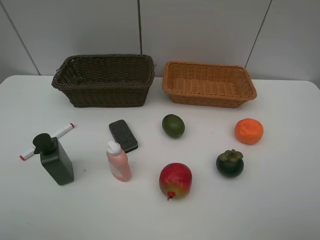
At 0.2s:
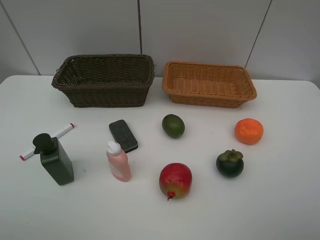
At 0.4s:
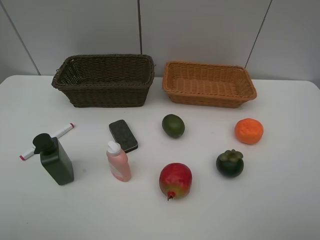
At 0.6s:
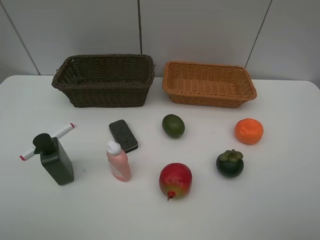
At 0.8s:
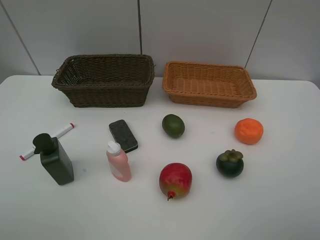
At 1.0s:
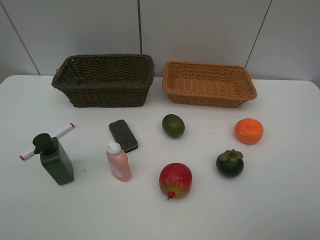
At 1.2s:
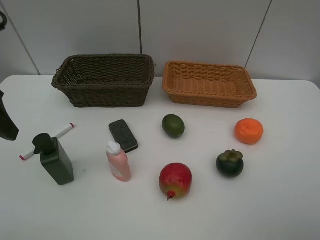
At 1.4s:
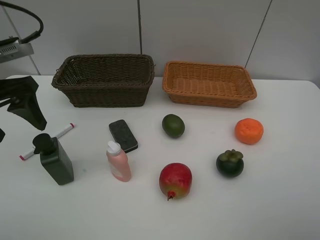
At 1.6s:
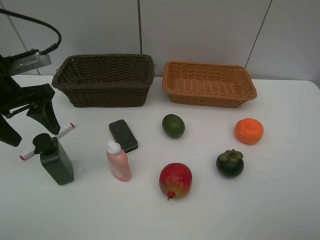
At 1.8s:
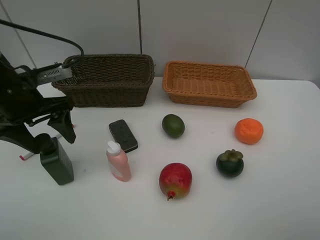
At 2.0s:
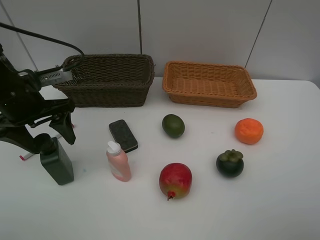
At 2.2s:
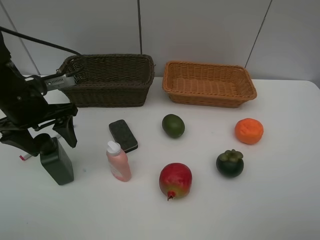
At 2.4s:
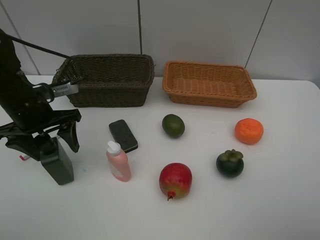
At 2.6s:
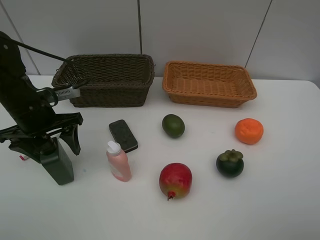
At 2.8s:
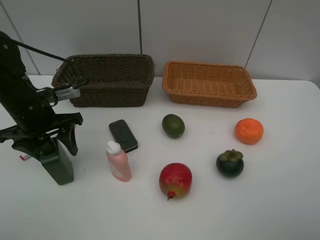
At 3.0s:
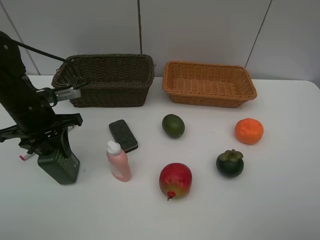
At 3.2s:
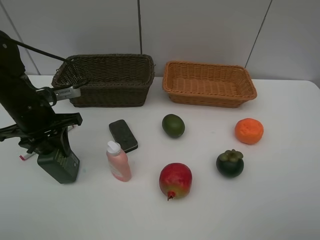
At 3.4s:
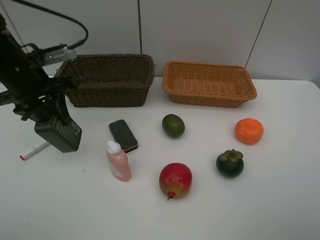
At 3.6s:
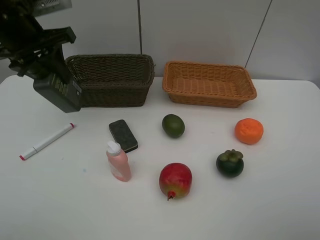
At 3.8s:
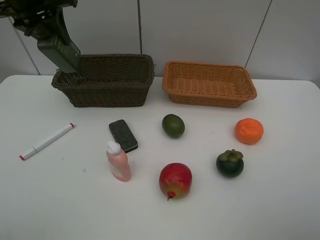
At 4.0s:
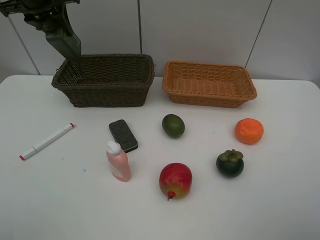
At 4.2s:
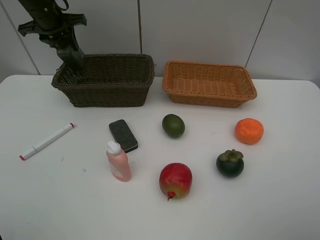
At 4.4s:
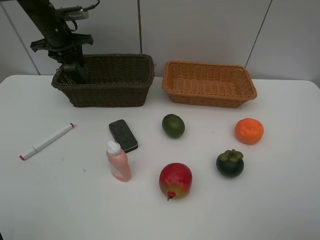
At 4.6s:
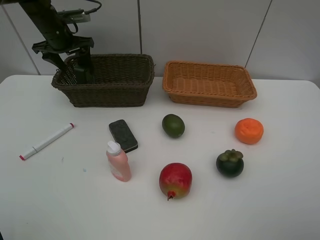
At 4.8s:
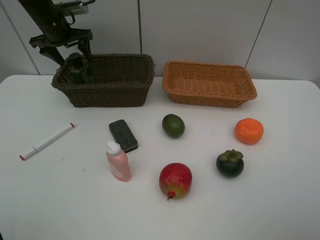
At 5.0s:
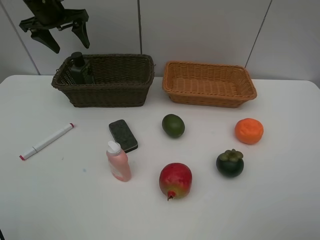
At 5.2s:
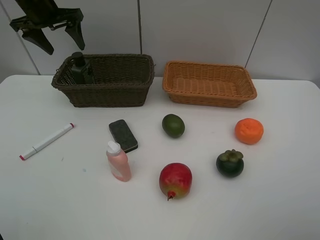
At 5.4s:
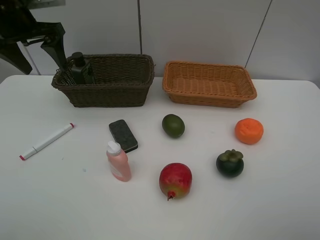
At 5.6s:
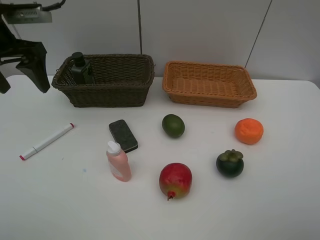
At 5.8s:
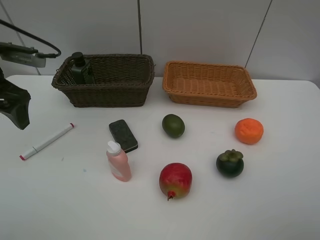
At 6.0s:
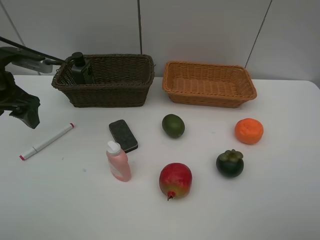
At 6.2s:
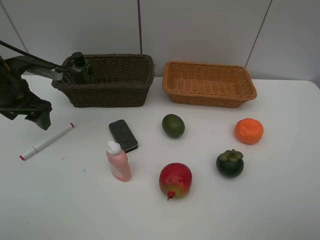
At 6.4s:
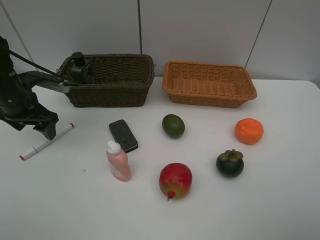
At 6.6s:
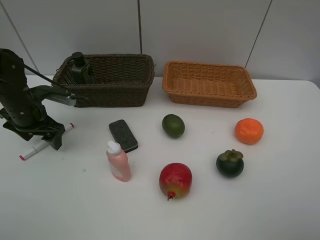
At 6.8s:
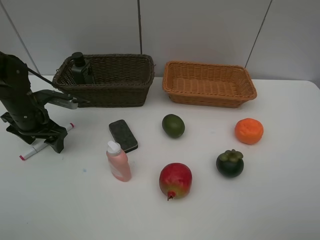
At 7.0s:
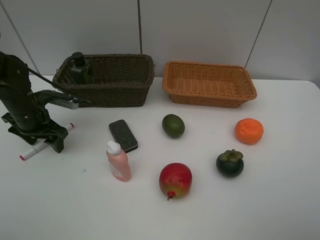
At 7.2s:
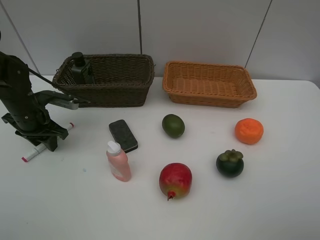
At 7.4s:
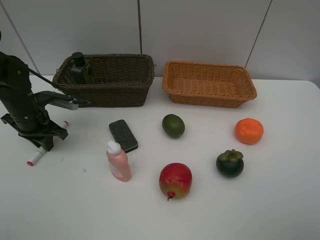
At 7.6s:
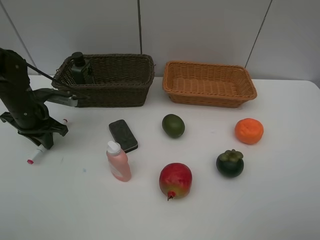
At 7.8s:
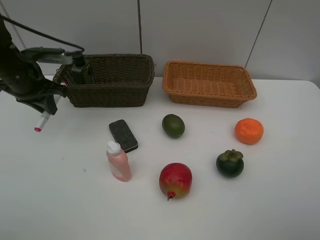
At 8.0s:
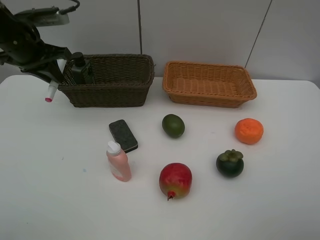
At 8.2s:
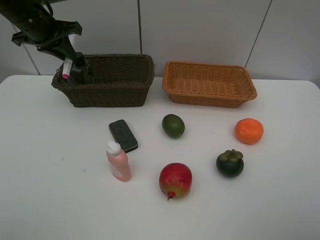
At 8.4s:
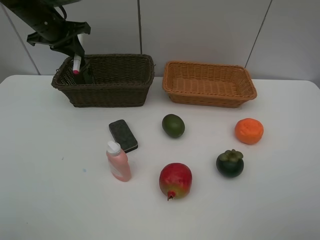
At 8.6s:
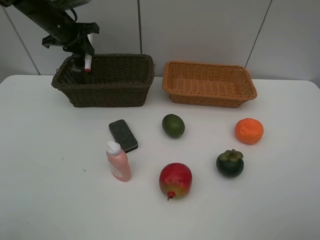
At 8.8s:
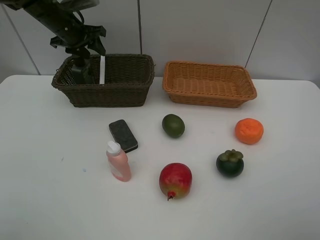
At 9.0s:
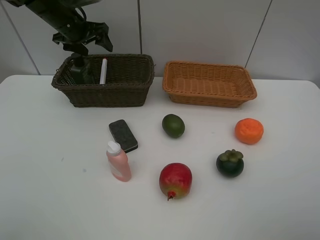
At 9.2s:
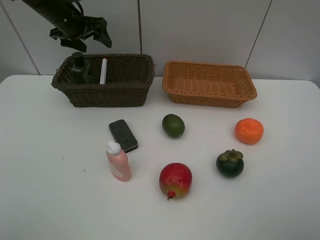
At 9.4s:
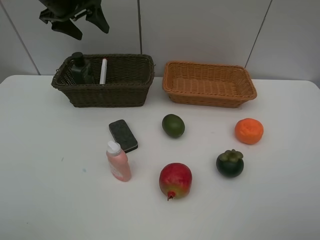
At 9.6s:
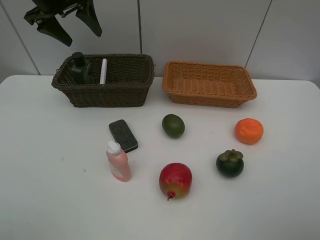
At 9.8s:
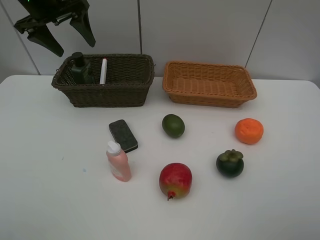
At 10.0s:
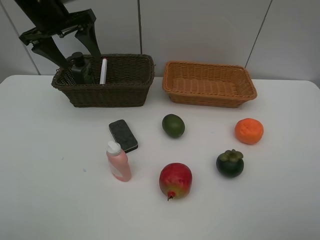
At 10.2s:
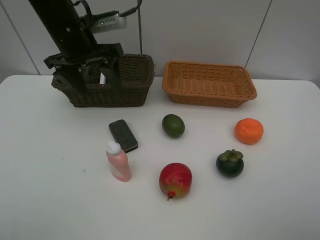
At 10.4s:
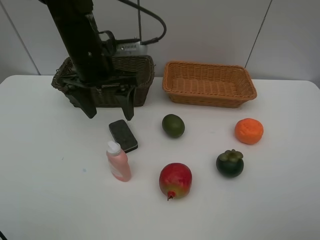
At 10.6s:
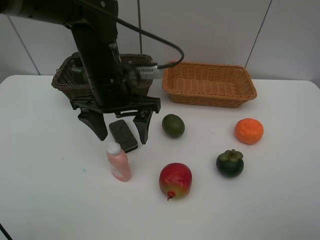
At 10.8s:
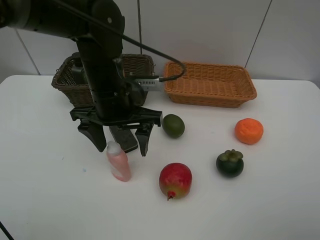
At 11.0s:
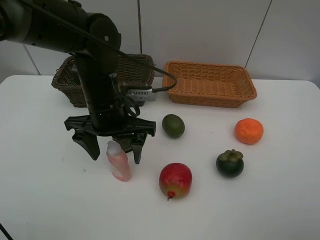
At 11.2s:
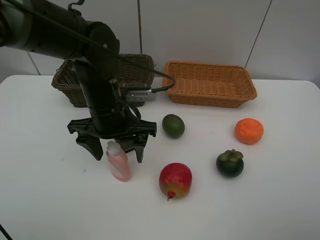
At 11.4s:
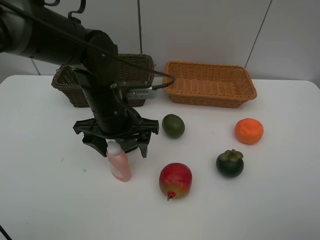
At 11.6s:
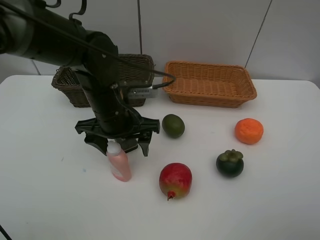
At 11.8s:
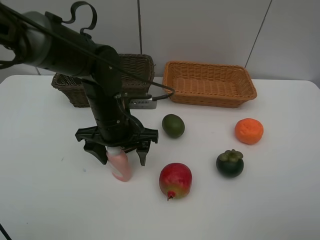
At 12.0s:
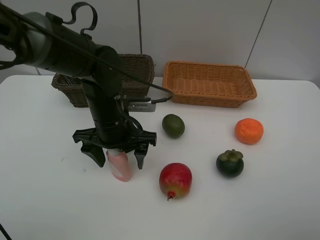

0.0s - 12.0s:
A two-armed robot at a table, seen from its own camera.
Task of the whole recording: Place multiple objects separately in different baskets.
Step, 0.0s - 3.2s: Pick up the hard facial cleanser with left gripper.
Step, 3.4s - 4.8s: Place the hard facial cleanser in the dark basket with left gripper.
Step, 5.0s - 7.6s: Pick up the red marker with left gripper.
Step, 7.8s - 9.0s: Place the red marker in the dark basket with left gripper.
0.0s - 1.6s: The left gripper moves forward, about 25 cm.
1.6s - 3.0s: The left gripper shifts about 5 cm downward, and closes.
3.0s - 4.4s: The left gripper moves forward, some 25 cm.
4.4s - 6.0s: The left gripper goes roughly 20 cm backward, and opens up.
6.0s - 7.6s: The left gripper travels downward by roughly 10 cm, and closes.
7.6s - 9.0s: The left gripper moves forward and upward, some 20 cm, and opens.
9.0s - 10.4s: The left gripper heads backward and to the right, covering approximately 20 cm.
10.4s - 12.0s: The left gripper heads downward and backward, covering roughly 10 cm.

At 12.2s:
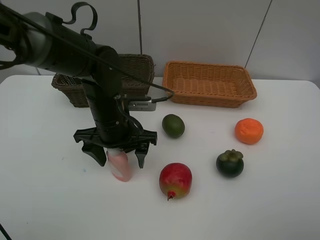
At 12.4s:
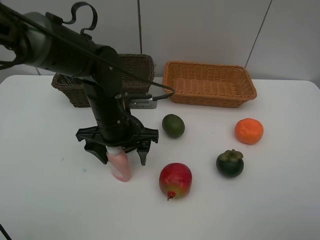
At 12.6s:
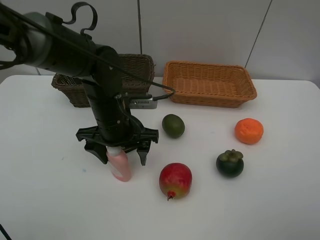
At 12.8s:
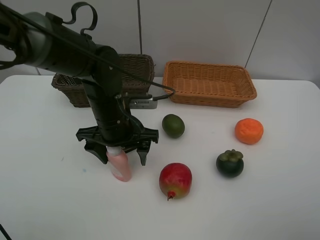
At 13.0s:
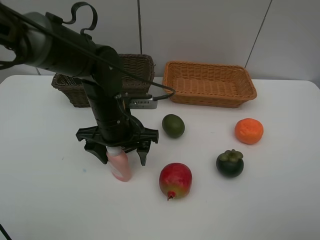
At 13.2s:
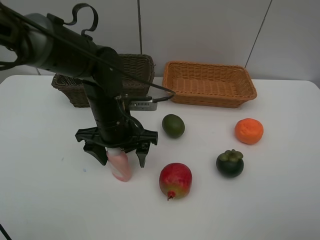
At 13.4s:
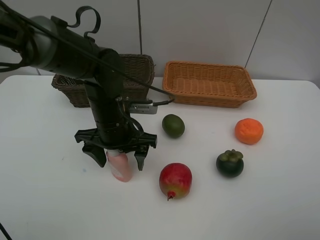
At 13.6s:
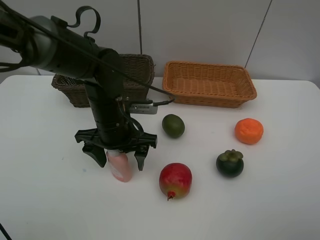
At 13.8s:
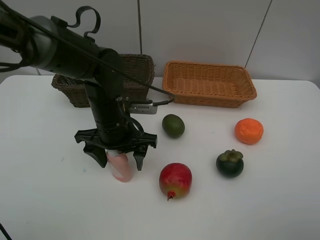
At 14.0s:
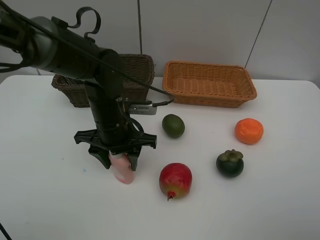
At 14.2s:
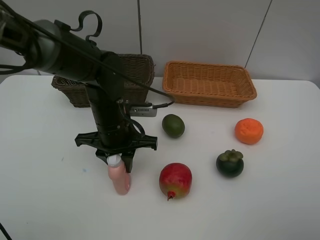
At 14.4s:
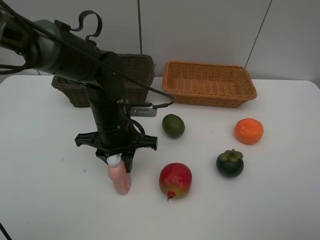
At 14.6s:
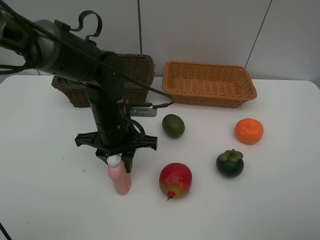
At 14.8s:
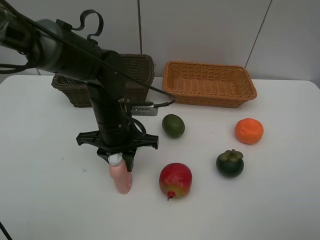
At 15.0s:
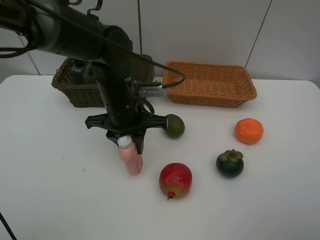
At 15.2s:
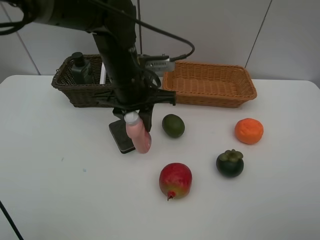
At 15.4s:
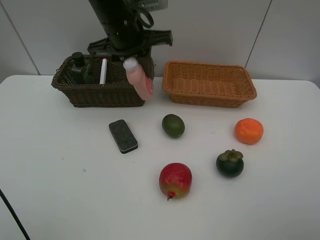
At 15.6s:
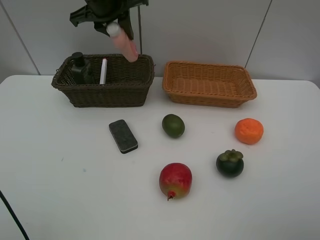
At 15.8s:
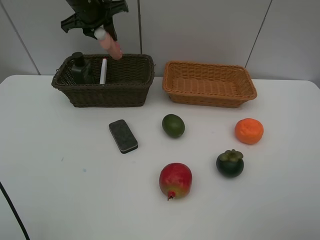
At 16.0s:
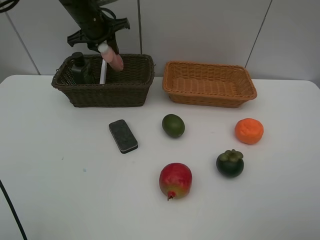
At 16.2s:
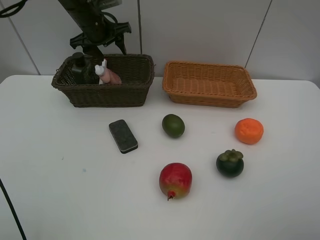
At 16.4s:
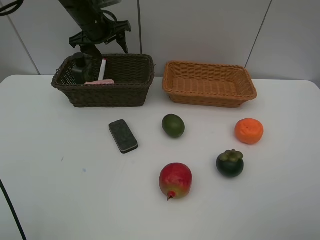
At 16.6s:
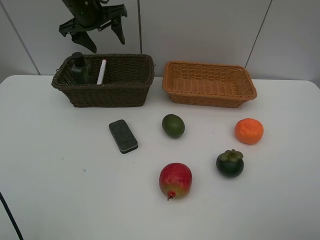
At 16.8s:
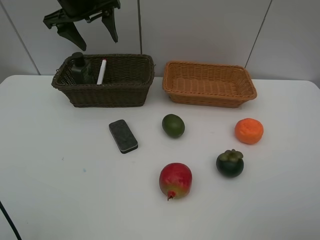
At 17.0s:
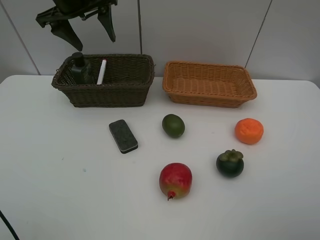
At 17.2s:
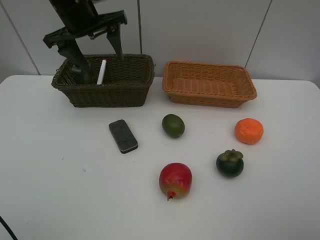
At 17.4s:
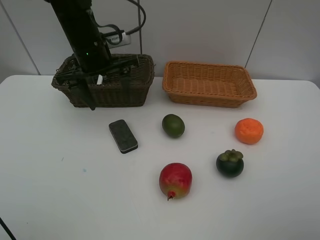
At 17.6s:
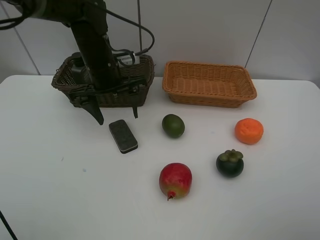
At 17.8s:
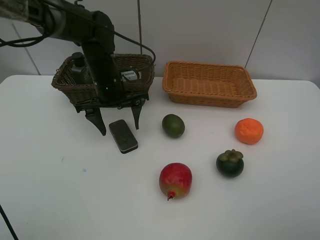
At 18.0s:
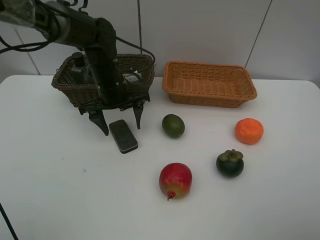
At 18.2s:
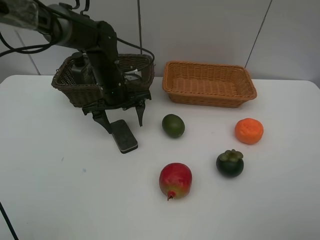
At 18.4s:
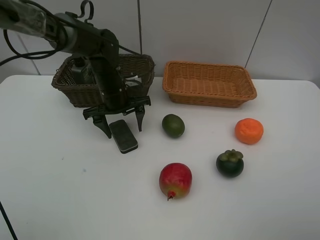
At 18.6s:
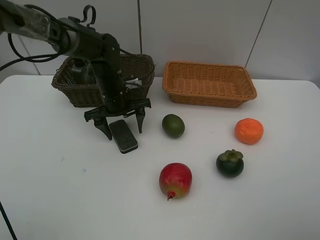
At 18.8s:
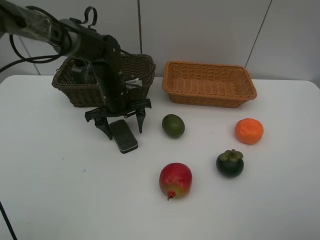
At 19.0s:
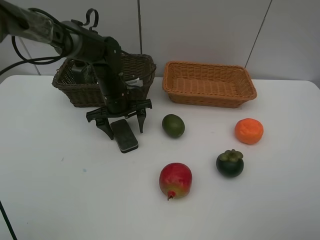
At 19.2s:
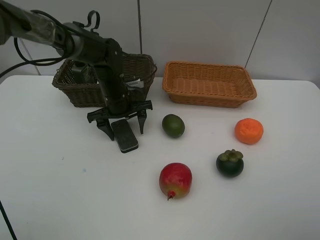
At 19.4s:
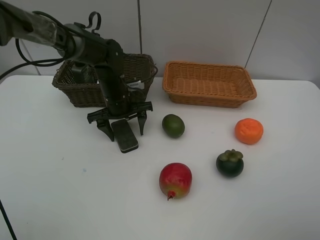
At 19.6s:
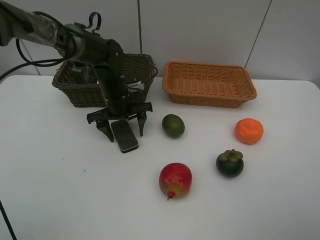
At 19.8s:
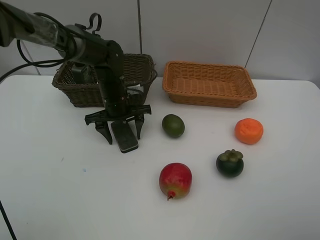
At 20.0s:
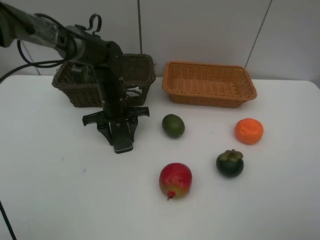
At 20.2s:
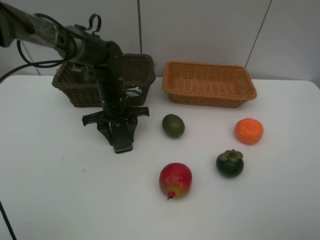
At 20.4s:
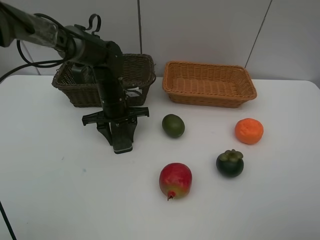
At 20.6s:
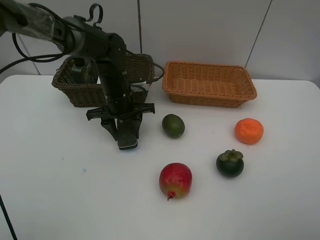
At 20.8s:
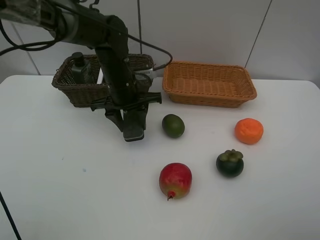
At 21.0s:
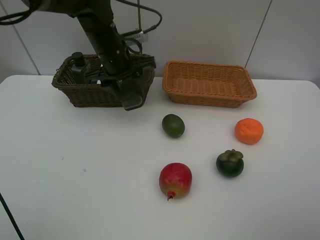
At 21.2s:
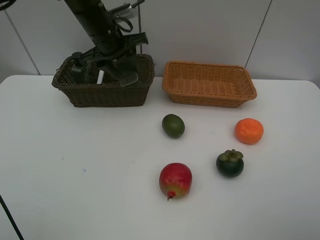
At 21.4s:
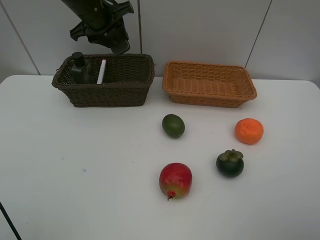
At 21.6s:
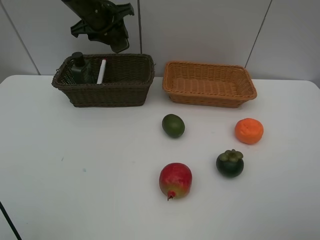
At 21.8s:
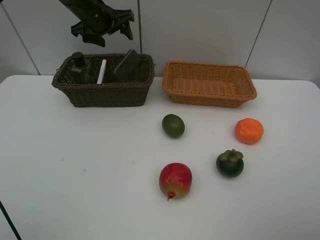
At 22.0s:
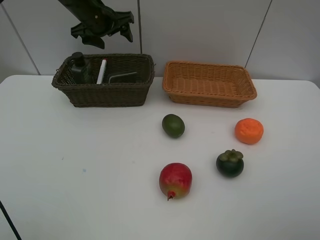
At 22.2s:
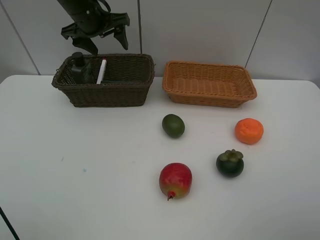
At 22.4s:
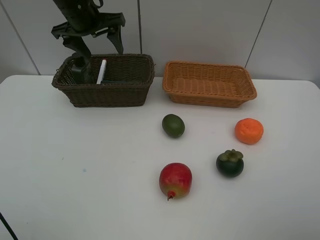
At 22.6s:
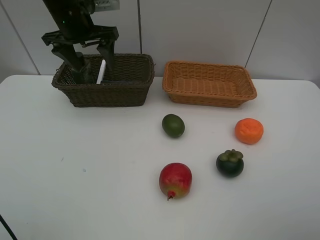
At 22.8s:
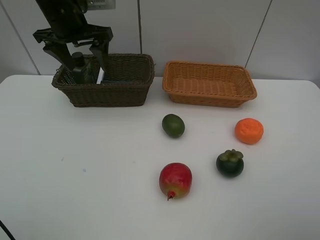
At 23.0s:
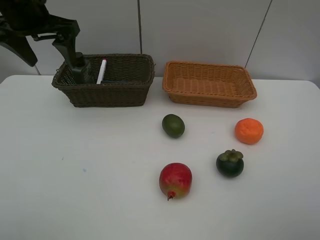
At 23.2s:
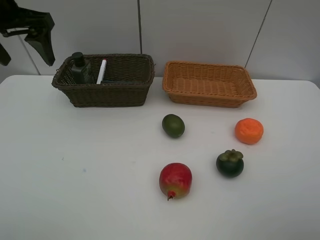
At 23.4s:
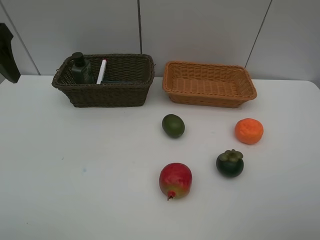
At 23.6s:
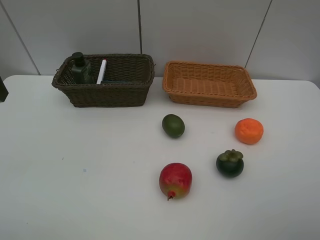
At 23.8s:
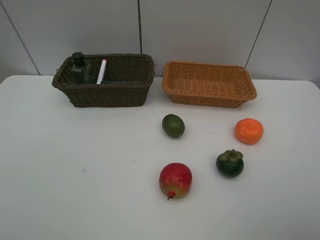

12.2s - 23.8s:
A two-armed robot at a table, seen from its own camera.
Task of the whole recording: Place multiple objects separately in different baskets.
Step, 12.2s - 15.0s: Pick up the laundry detergent with left gripper.
Step, 15.2s - 16.2s: Place the laundry detergent in the dark basket with left gripper.
Step, 16.4s - 20.6s: Pick up blackboard eraser with left gripper.
Step, 20.8s - 22.0s: Place the blackboard eraser in the dark basket with left gripper.
12.2s - 13.6s: The two grippers keep their place.
13.6s - 15.0s: The left gripper closes.
15.0s - 16.6s: The left gripper is displaced forward, upward and to the left by some 25 cm, and opens its fingers.
16.6s - 18.0s: The left gripper is displaced downward, backward and to the right by about 20 cm.
18.0s - 19.4s: The grippers move only a little.
19.4s - 21.0s: The left gripper heads upward, covering some 10 cm, and closes its fingers.
21.0s - 22.4s: The left gripper shifts about 10 cm upward and to the left, moves approximately 10 cm forward and comes back, and opens.
22.4s - 23.8s: The left gripper moves backward and to the left, about 35 cm.
